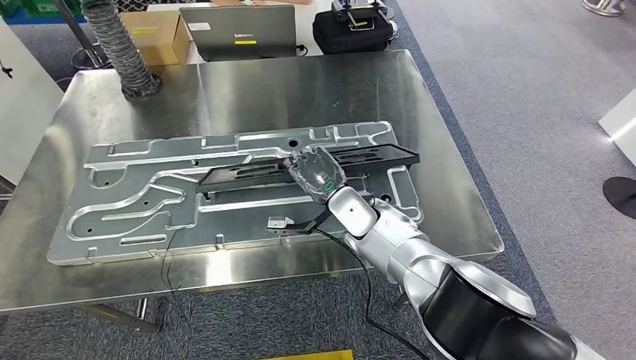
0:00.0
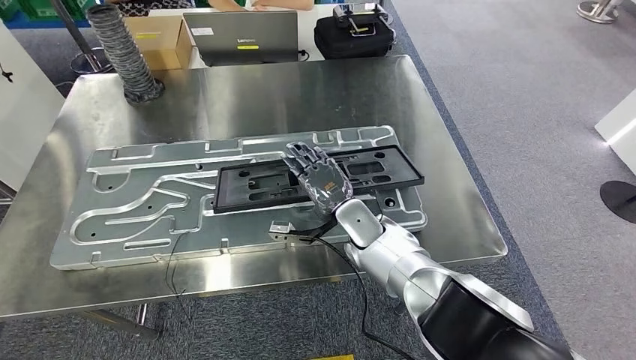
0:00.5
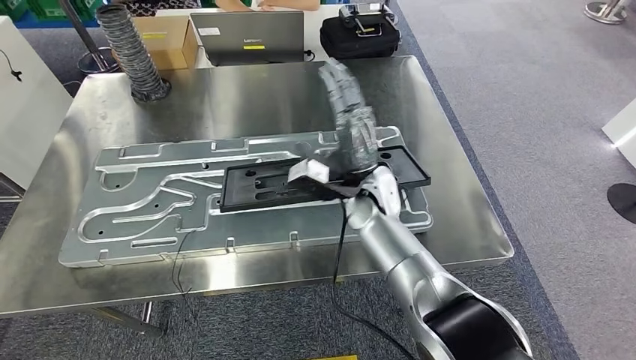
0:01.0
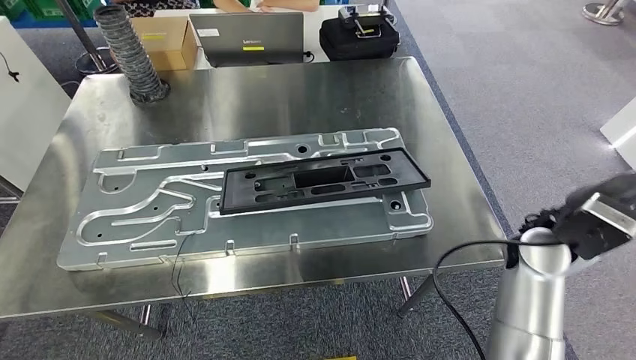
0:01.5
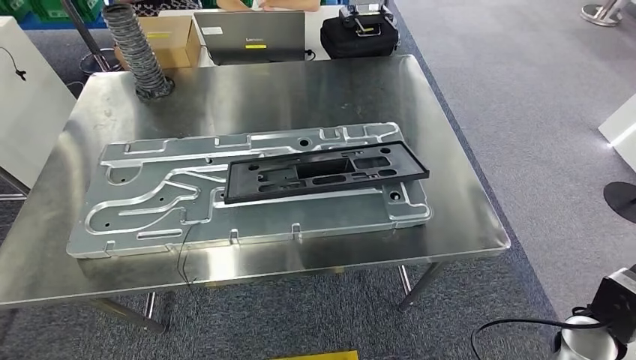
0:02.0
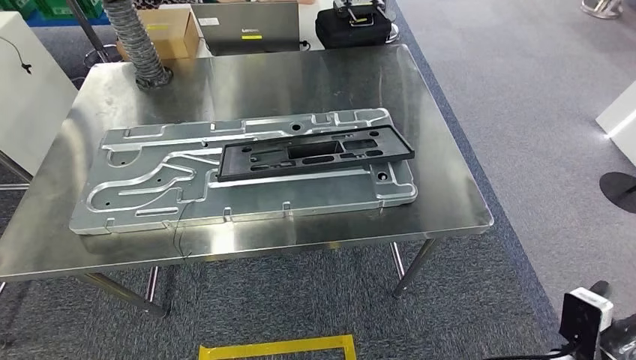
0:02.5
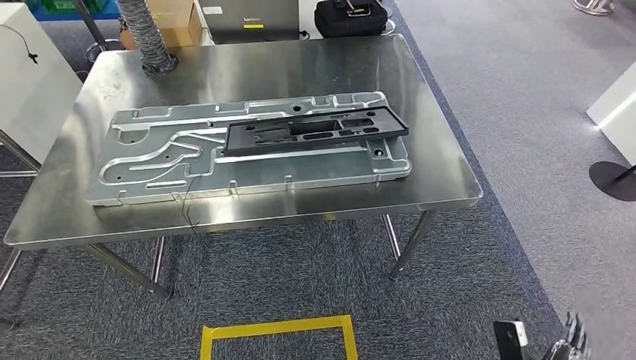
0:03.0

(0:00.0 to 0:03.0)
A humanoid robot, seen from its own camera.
Step, 0:00.0 - 0:01.5: Insert the large material into the corresponding slot on the workbench.
Step, 0:02.0 - 0:02.5: Move to the initial position of the shelf.

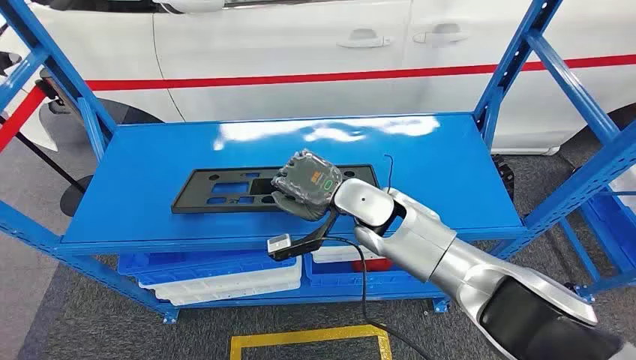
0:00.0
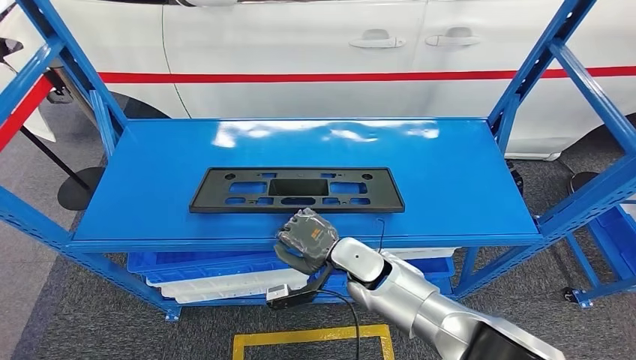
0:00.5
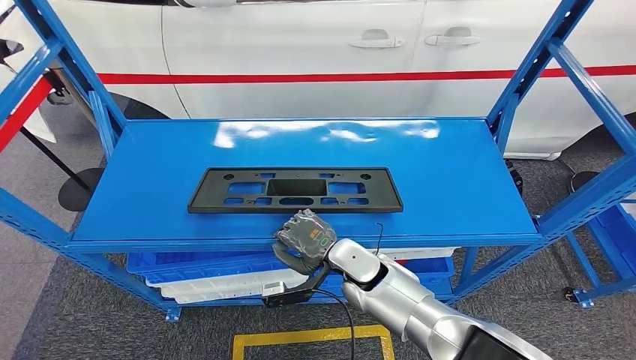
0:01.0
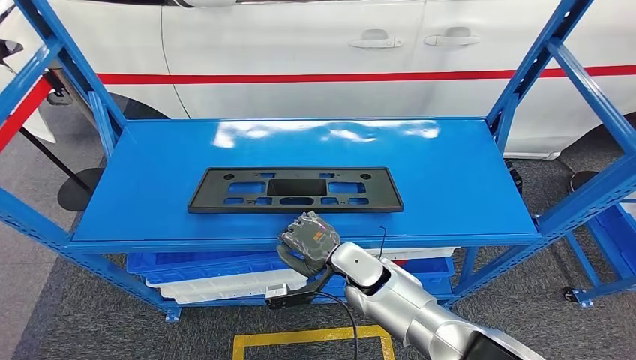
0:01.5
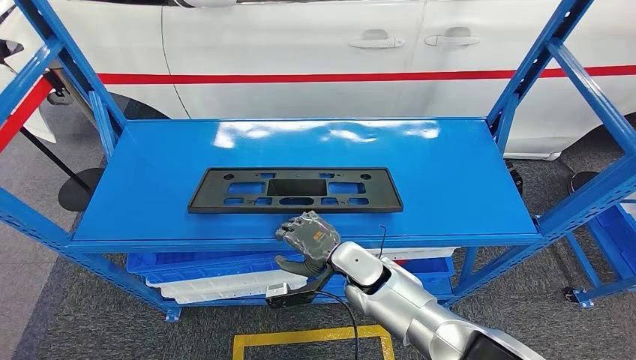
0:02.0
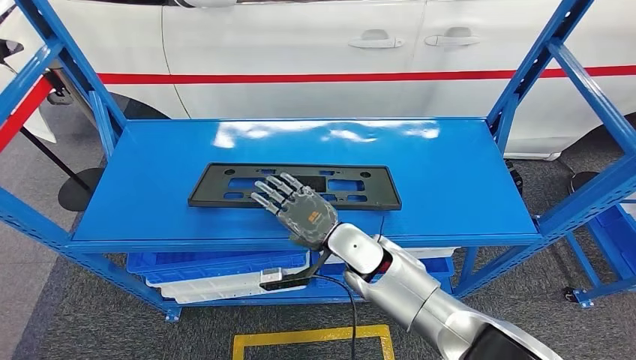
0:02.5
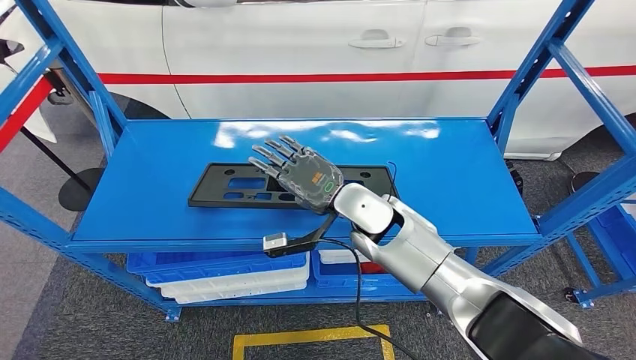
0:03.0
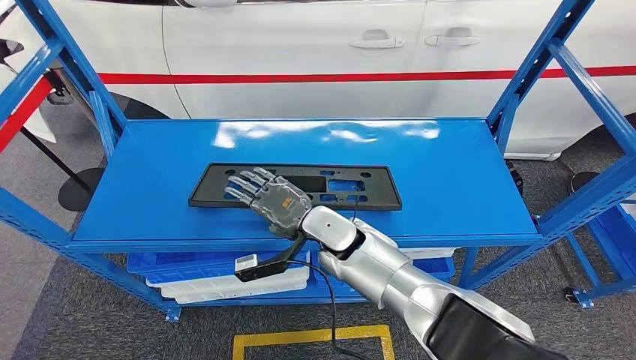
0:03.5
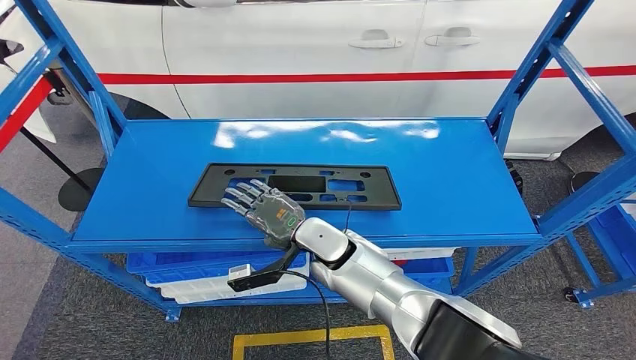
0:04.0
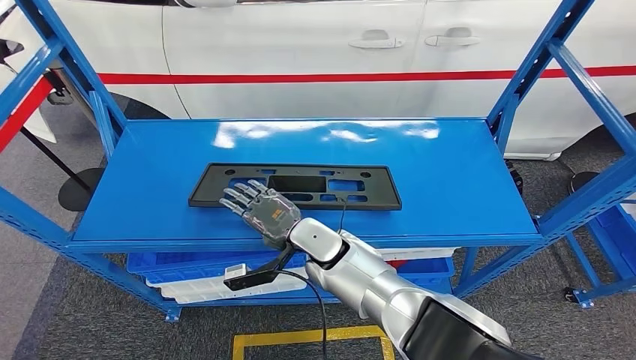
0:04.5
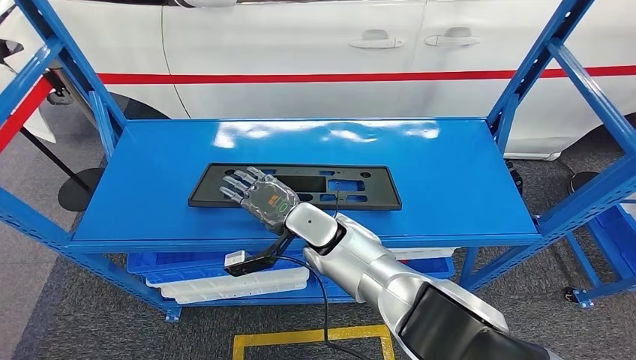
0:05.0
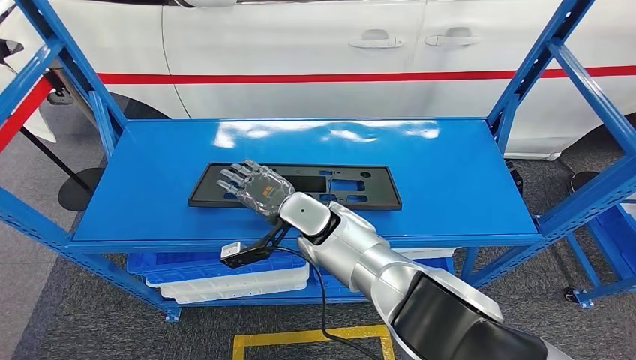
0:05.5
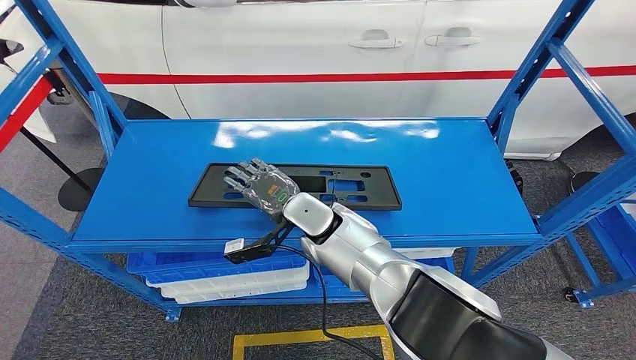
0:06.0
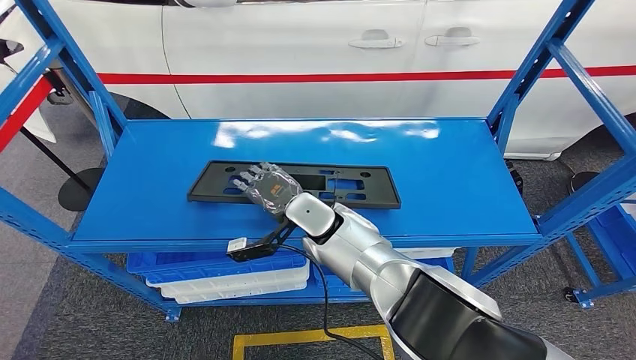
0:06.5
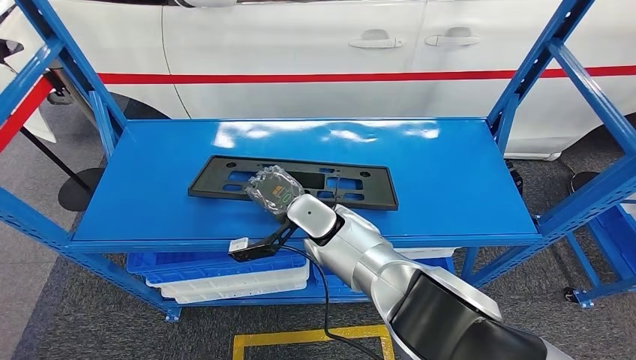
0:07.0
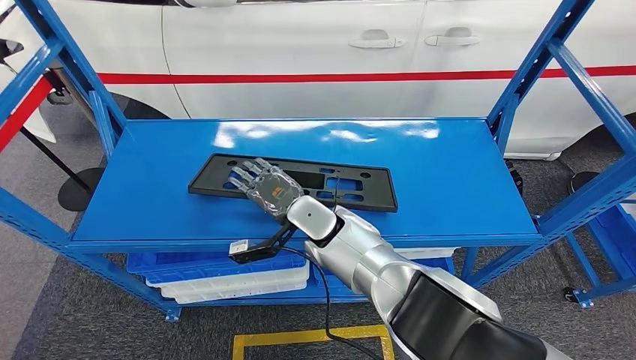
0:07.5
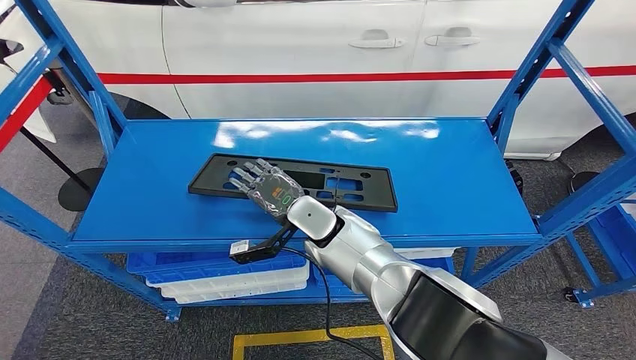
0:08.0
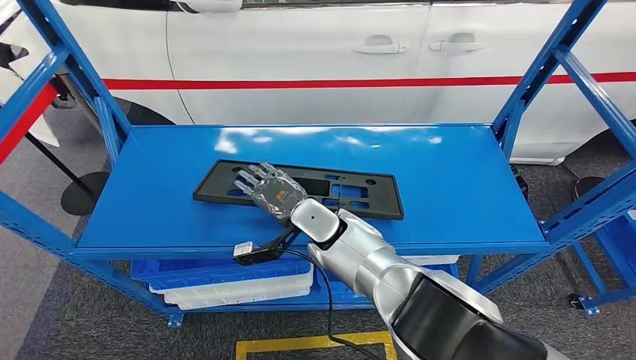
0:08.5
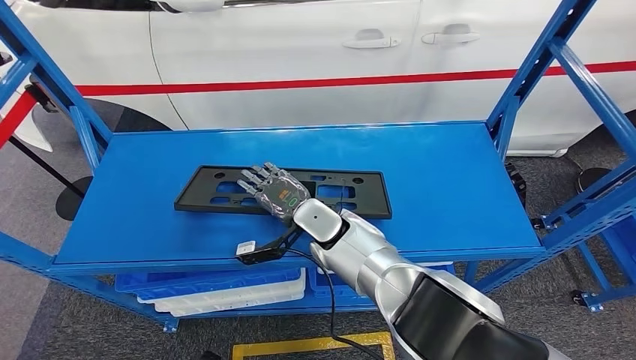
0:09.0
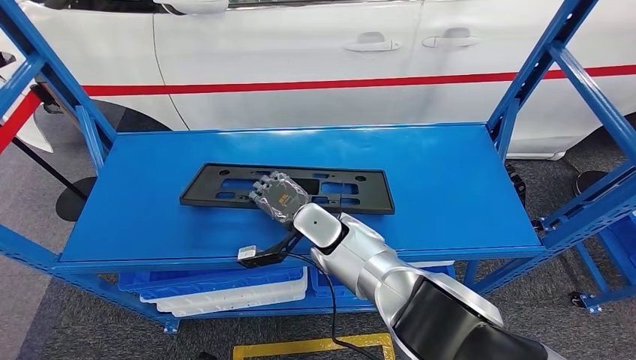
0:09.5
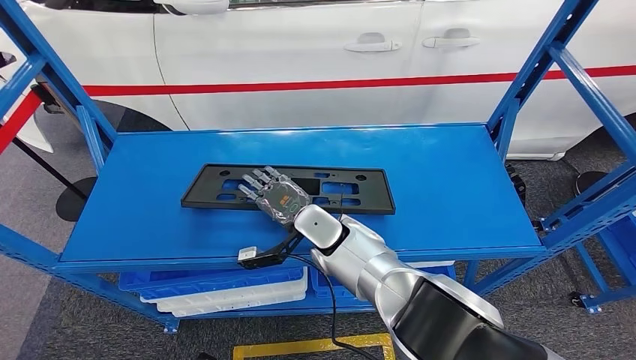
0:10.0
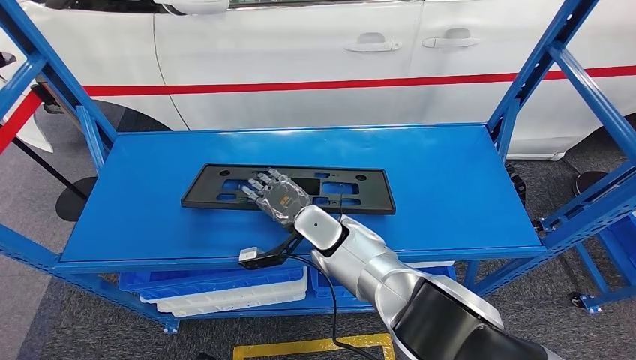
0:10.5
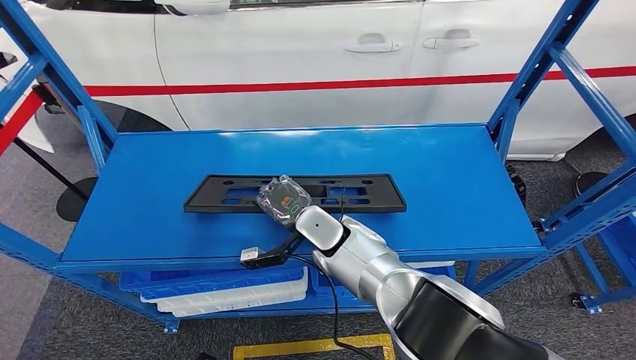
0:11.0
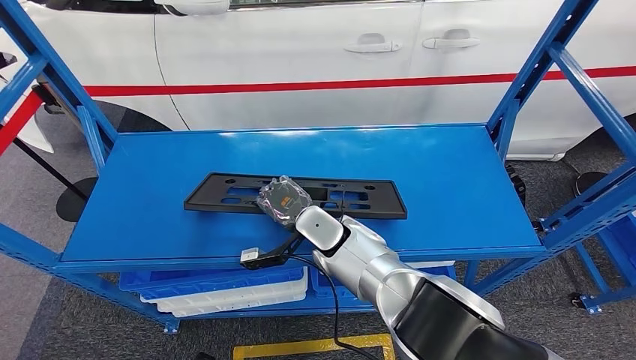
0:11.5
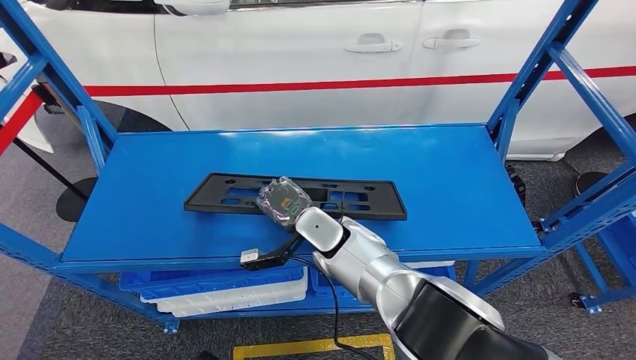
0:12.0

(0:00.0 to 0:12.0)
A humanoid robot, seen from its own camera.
0:02.0 - 0:04.0: The right hand goes approximately 5 cm to the left.
0:04.0 - 0:06.0: The right hand ends up some 5 cm from where it was.
0:06.0 - 0:08.0: Both hands stay put.
0:10.0 - 0:12.0: There are only small adjustments of the hands.

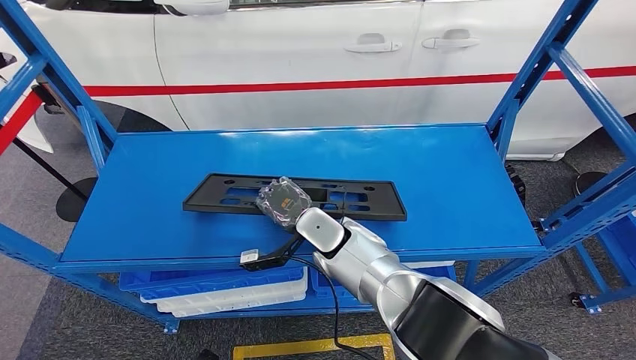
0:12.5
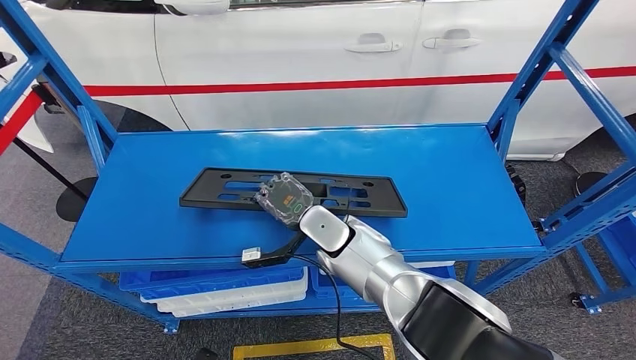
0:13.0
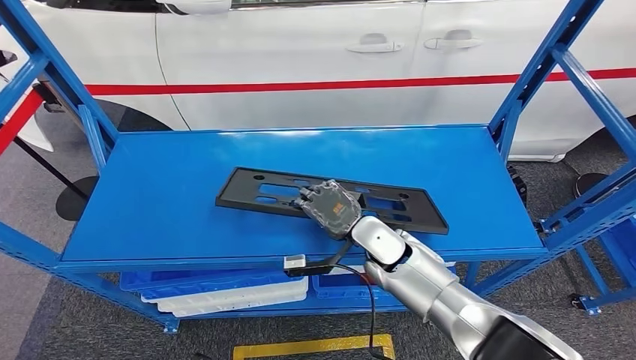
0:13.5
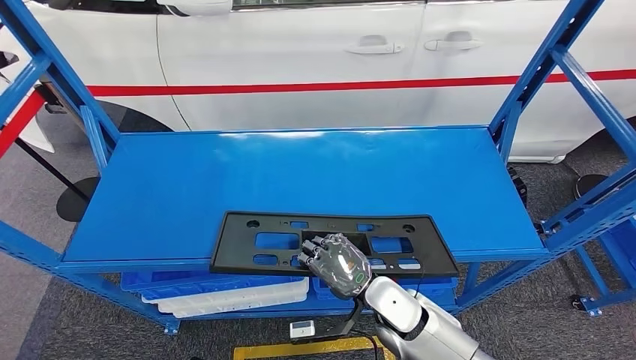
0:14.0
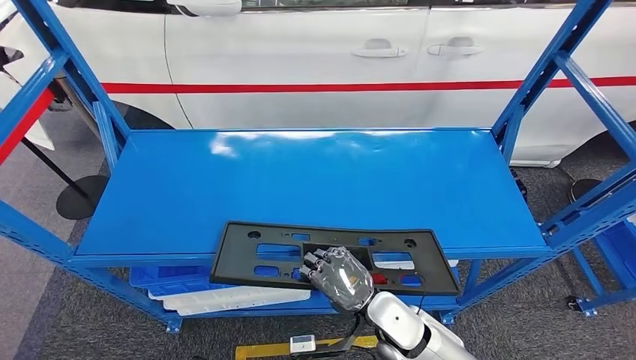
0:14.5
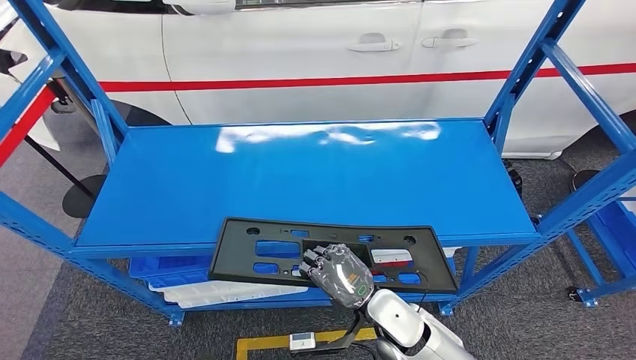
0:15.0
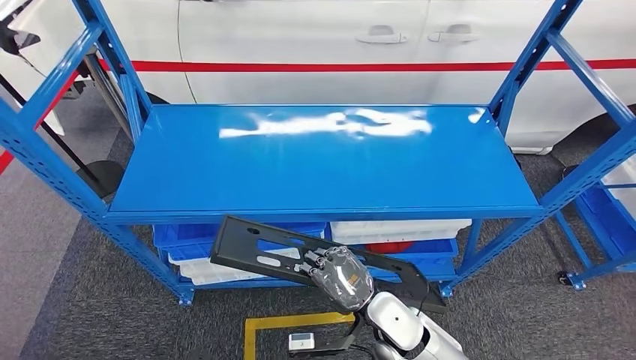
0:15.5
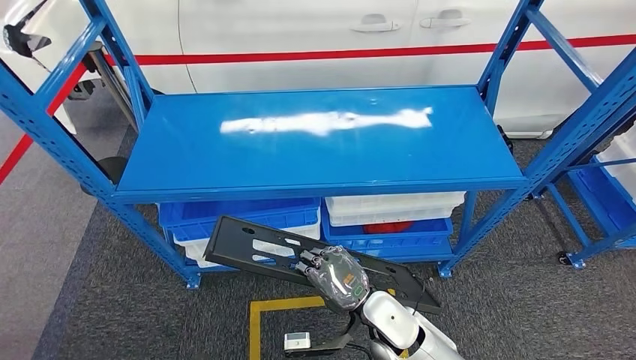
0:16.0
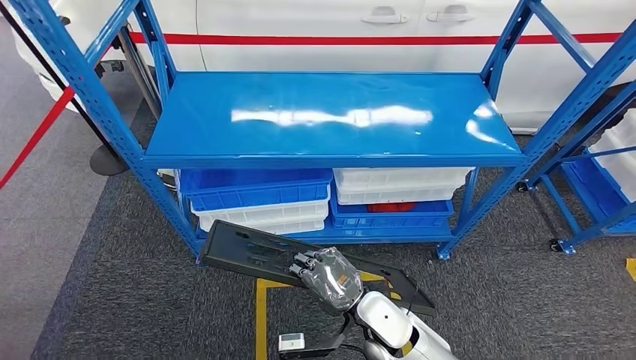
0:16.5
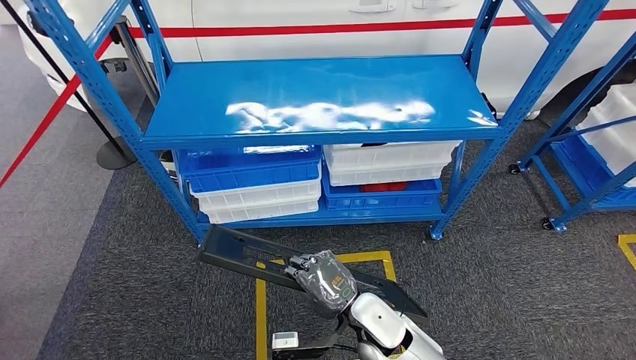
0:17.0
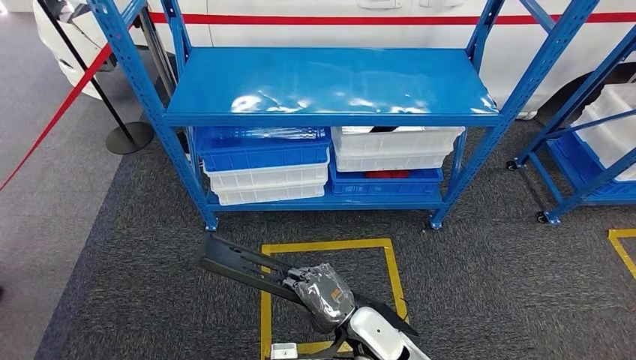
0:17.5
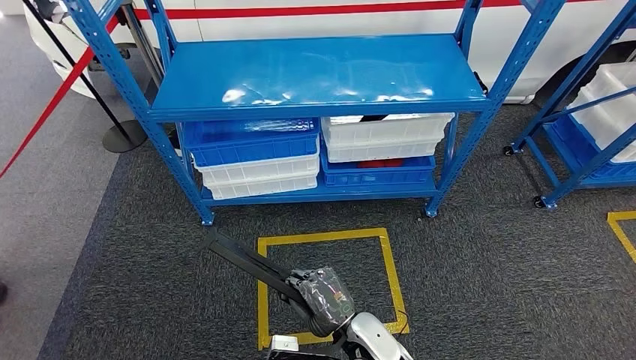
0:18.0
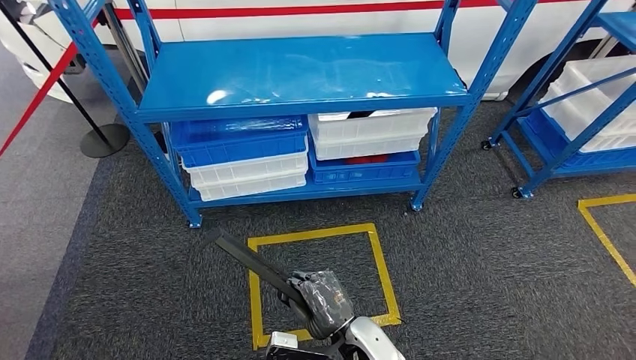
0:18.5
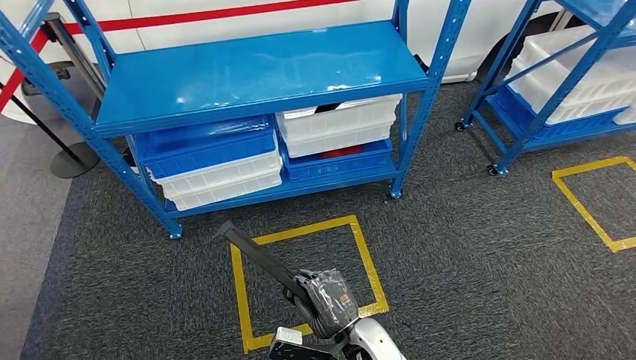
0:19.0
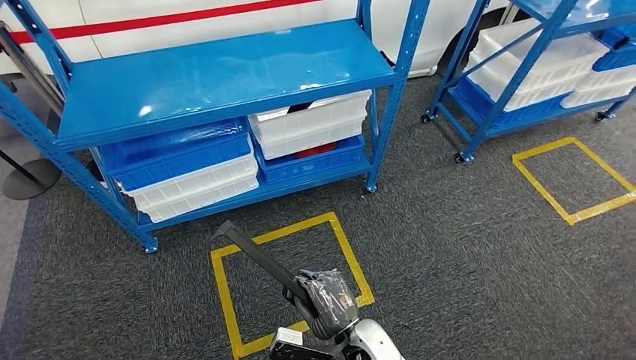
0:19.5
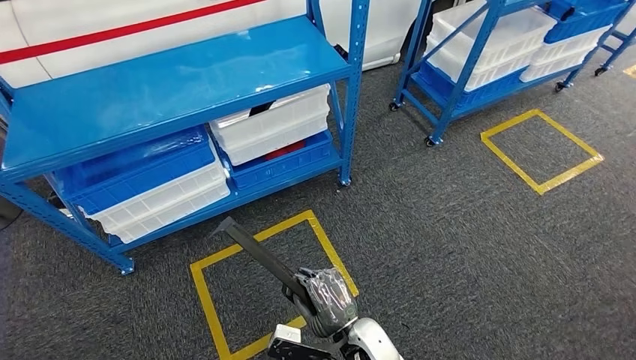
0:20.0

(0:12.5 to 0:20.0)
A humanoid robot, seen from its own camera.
Step, 0:12.5 - 0:15.0: Pick up the large material from the shelf.
